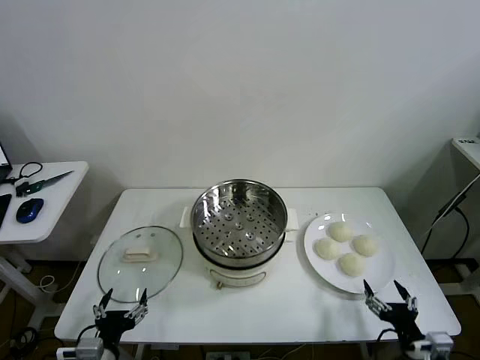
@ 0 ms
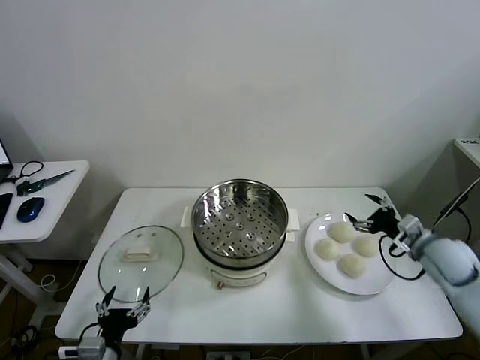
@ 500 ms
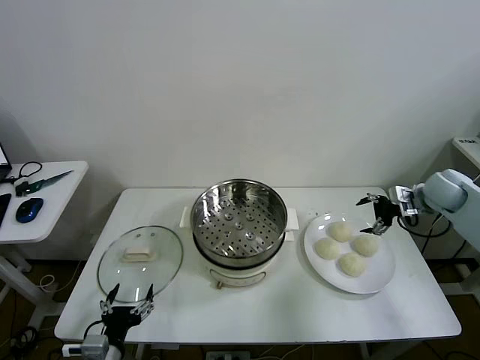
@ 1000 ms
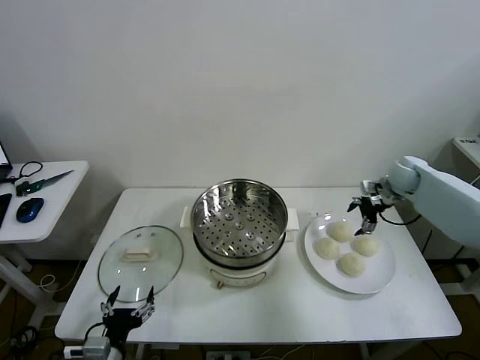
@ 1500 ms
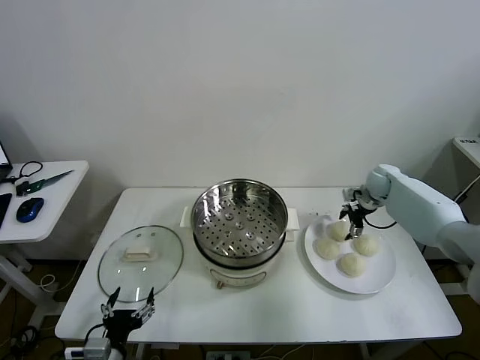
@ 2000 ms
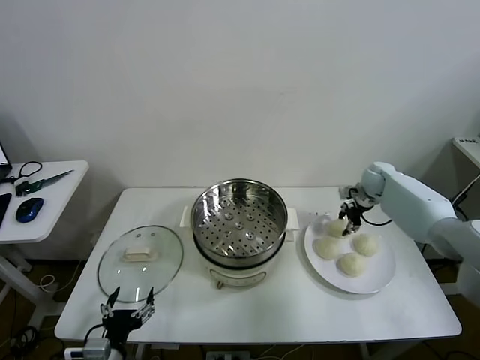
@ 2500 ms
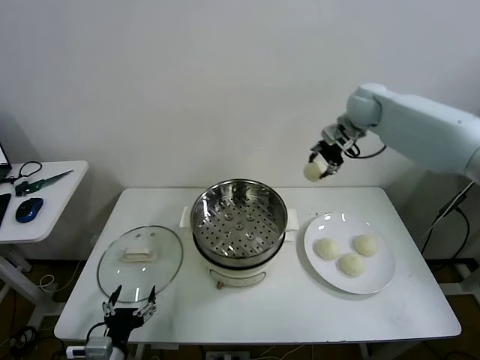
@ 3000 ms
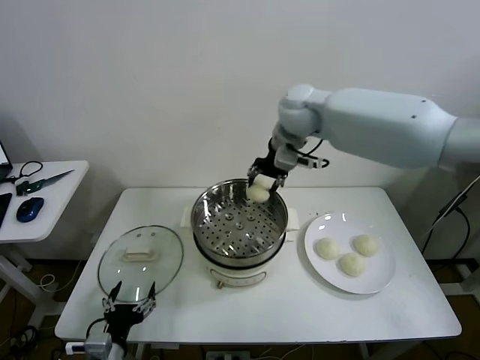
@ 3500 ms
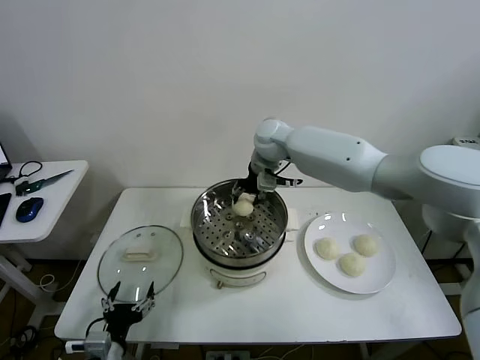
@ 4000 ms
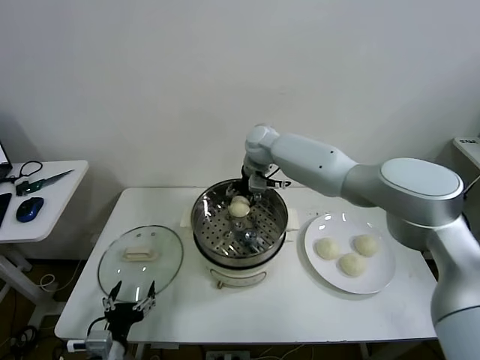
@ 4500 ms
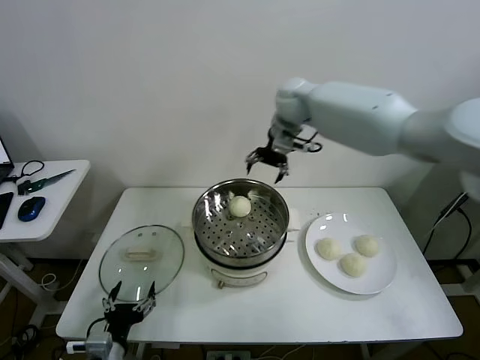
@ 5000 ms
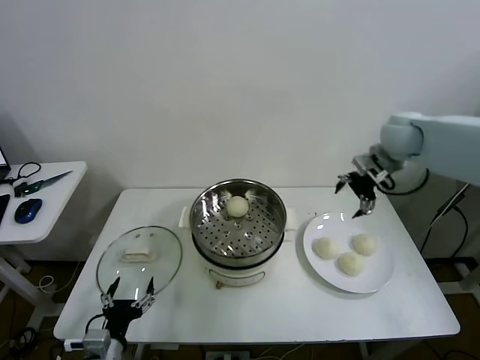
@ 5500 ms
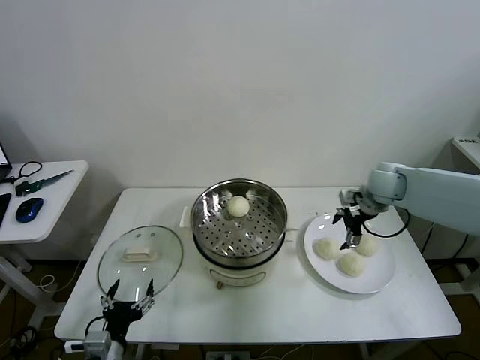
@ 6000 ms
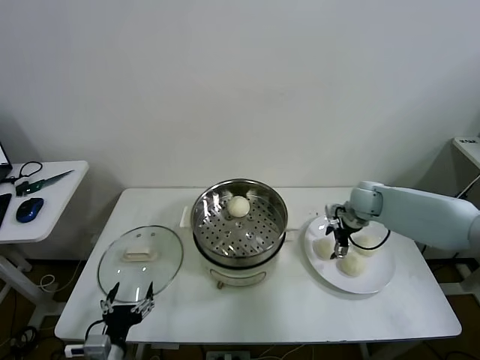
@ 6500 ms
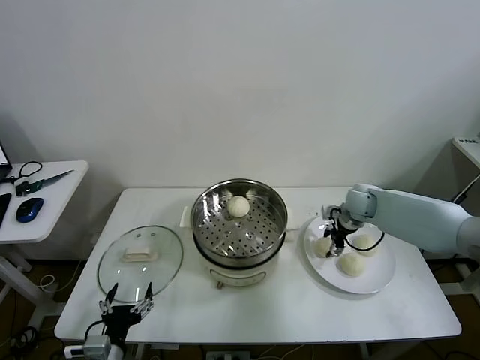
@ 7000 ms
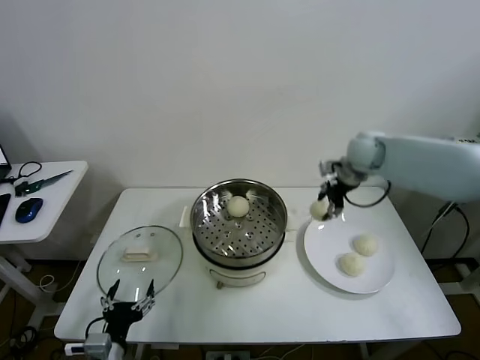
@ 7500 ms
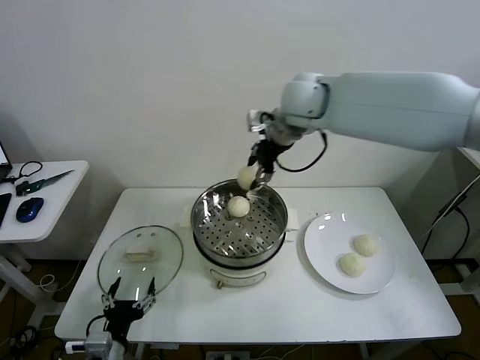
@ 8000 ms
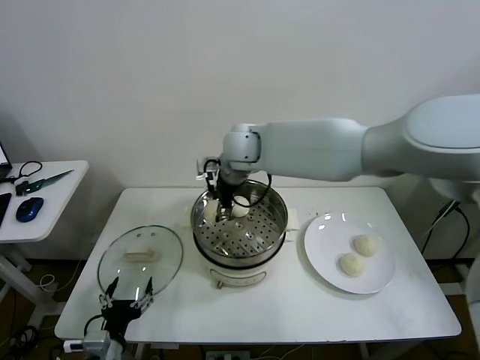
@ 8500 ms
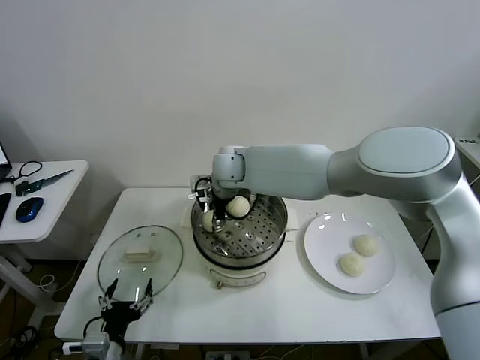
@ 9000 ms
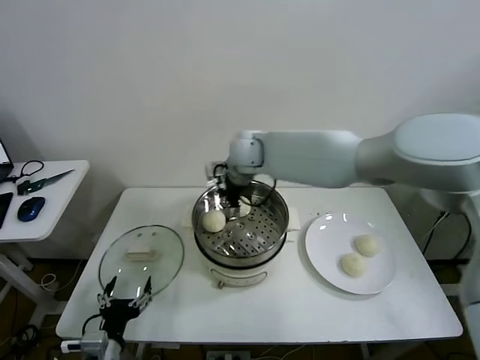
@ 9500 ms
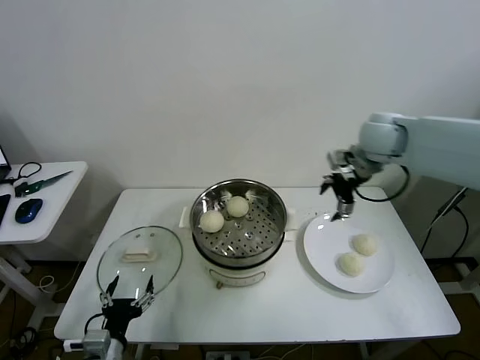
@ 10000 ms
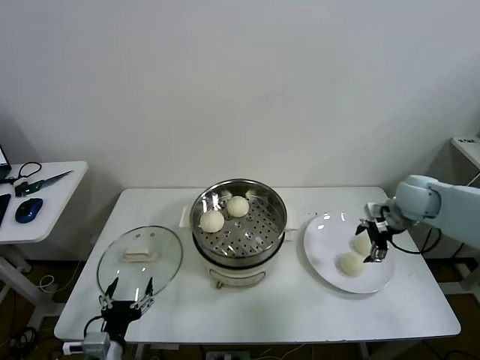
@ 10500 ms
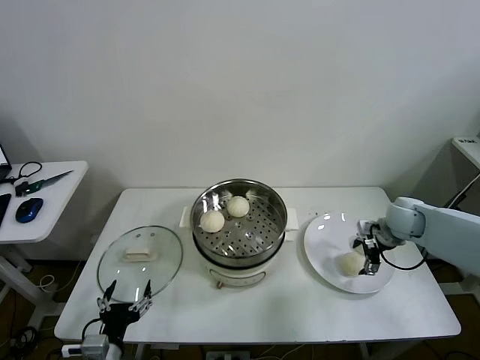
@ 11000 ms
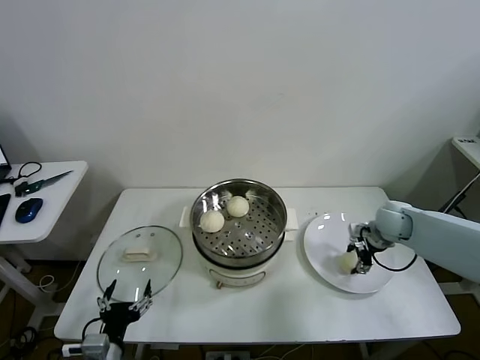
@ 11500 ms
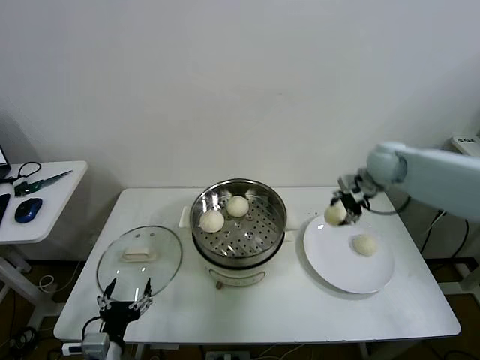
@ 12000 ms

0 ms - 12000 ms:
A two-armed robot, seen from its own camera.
Task of the whole recording: take steamed baozi put them in steamer then cover it.
Step, 0 ms - 2000 ms: Grasp the baozi in the plate with right gripper.
Step, 2500 ms - 4500 ms: Place the baozi on the steamer with right gripper.
Step, 5000 ms - 6500 ms: Grasp the baozi in the plate with right gripper.
Step, 7000 ms - 9500 ms: Place the baozi on the steamer with right gripper.
Step, 10000 ms - 11000 ms: Grasp the baozi in the plate with right gripper.
2000 ms - 4000 ms: The right gripper is displaced to the left and upward by approximately 35 cm, and closes its fingers.
4000 ms - 6000 ms: The right gripper goes some 30 cm to the right, and opens its fingers.
6000 ms - 8000 ms: The right gripper shifts about 30 cm to the left and upward, and closes up.
8000 ms - 10000 ms: The right gripper is displaced to the right and downward by some 20 cm, and opens its fingers.
10000 ms - 12000 ms: The right gripper goes about 10 cm downward and to the right, and closes up.

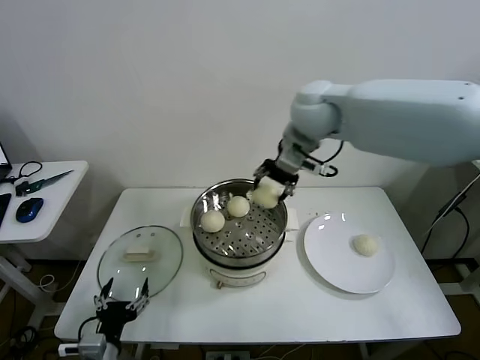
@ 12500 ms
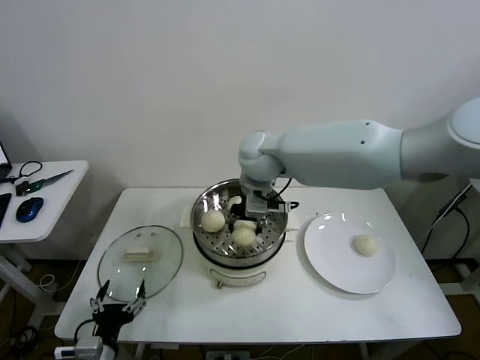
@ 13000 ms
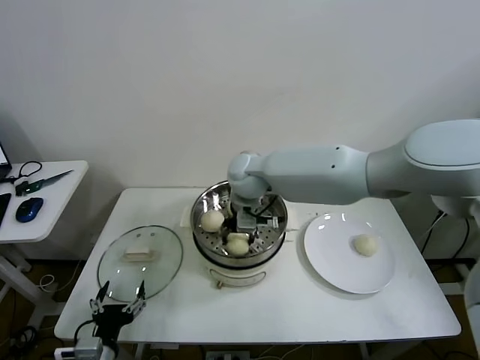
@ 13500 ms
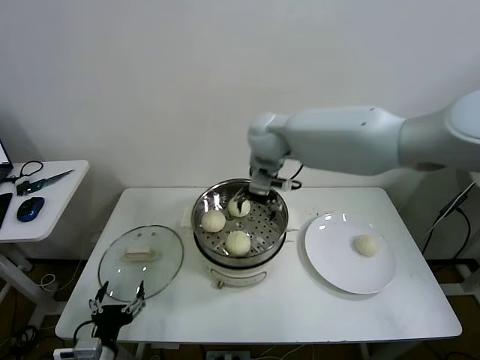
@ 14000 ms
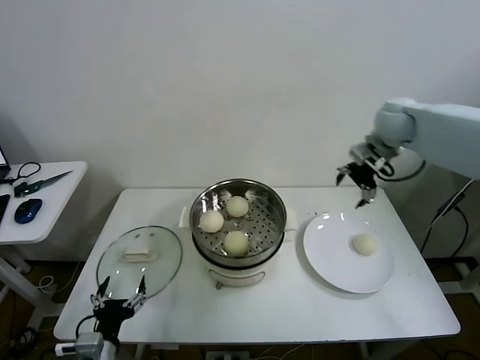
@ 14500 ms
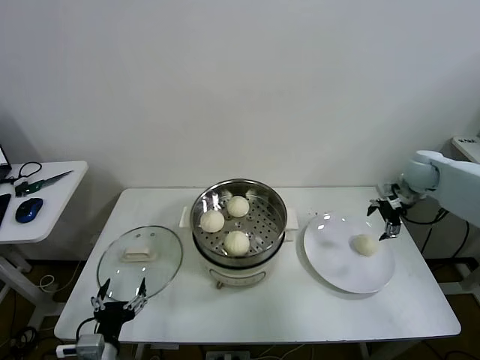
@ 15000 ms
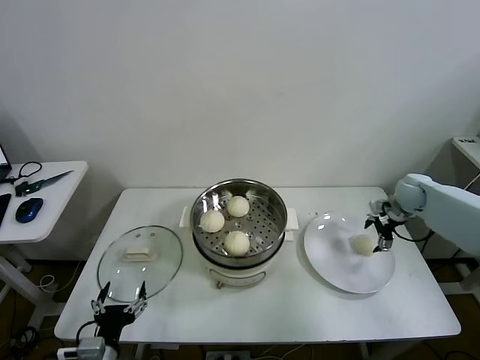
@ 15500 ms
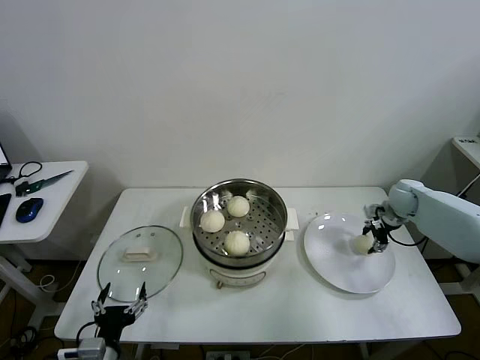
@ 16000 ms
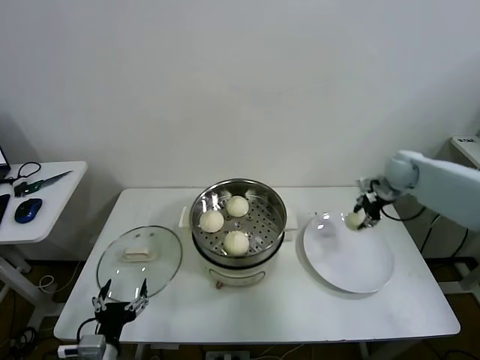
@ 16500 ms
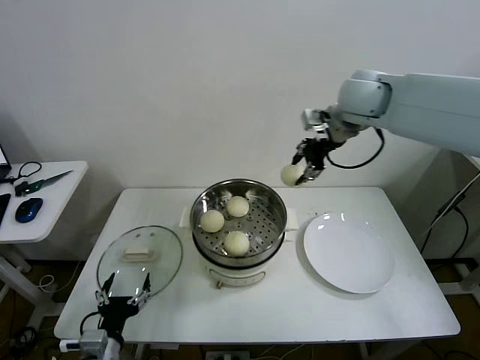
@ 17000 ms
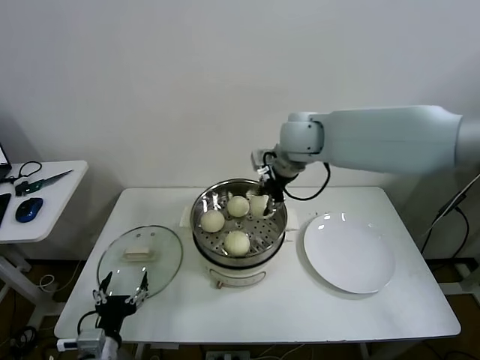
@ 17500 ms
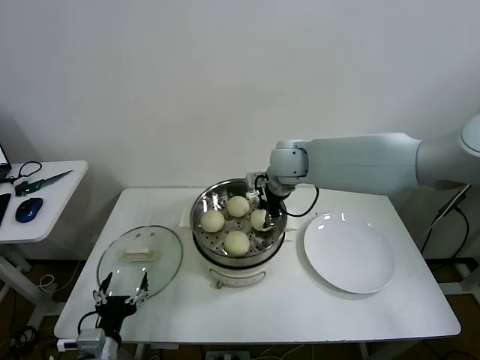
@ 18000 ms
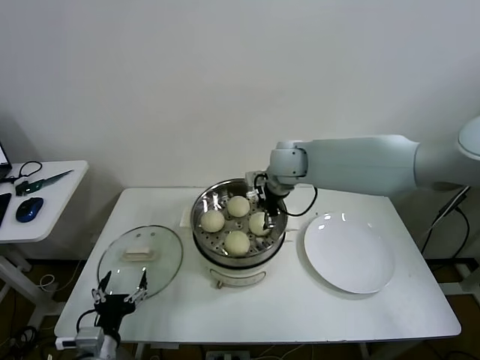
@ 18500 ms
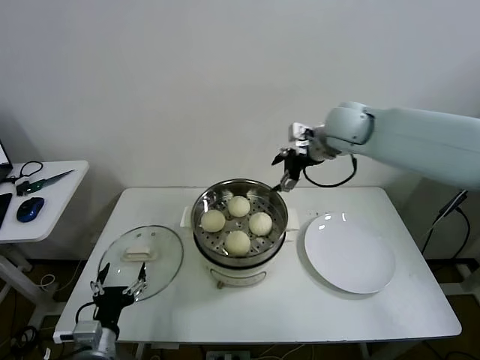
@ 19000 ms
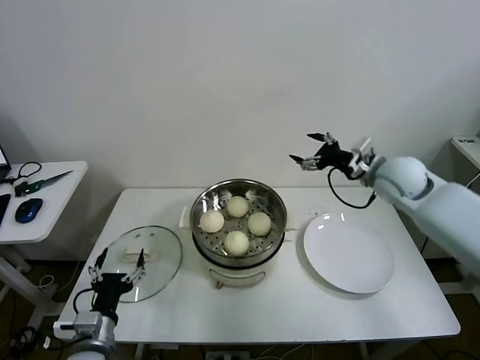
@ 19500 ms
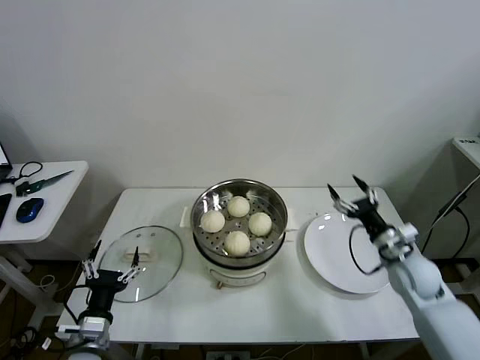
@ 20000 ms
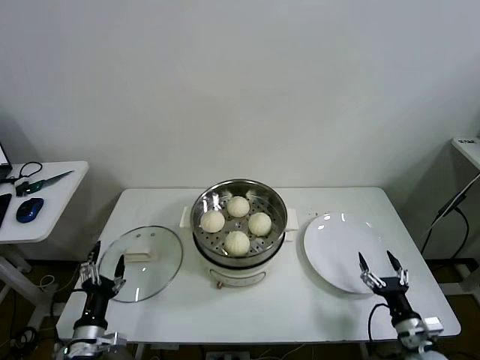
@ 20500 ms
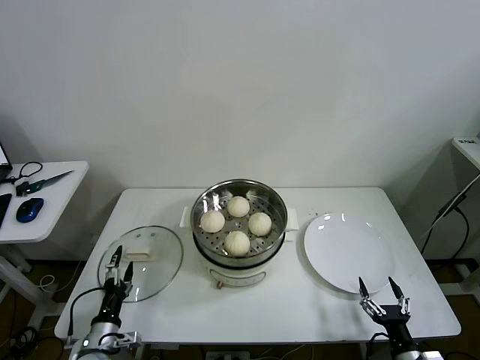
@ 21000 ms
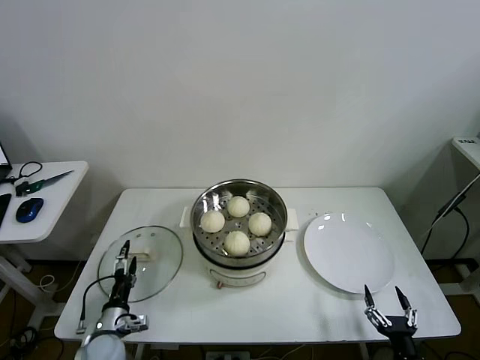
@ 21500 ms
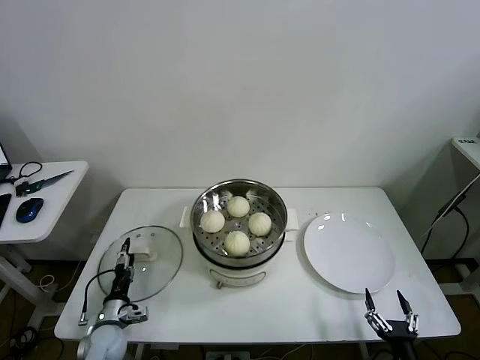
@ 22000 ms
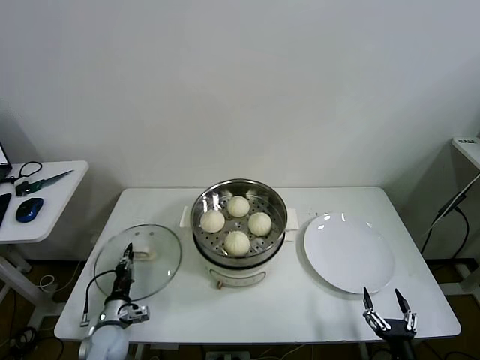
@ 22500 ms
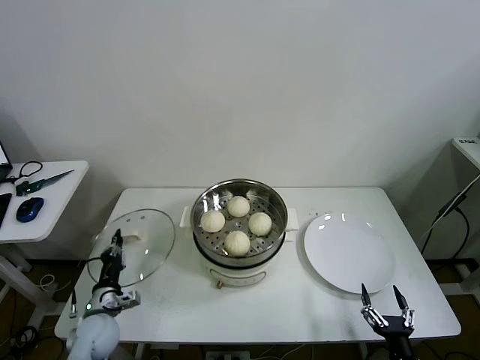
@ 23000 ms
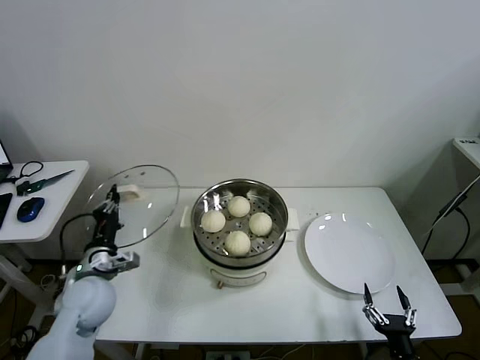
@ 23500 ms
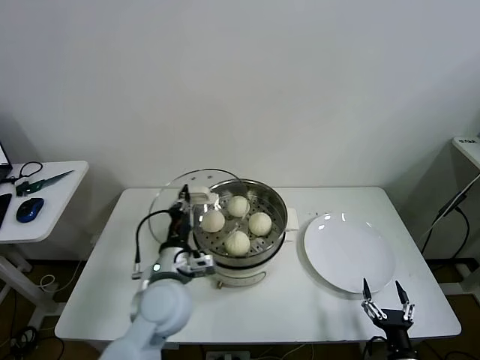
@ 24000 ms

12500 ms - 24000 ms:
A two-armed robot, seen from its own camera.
Task of the whole recording: take steamed baozi put them in steamer then cover it.
Step, 12500 ms - 13500 ms: Place the baozi on the steamer with right gripper.
Step, 14000 ms - 16000 ms: Grasp the baozi in the plate with right gripper.
Step, 16500 ms - 18500 ms: Place the baozi on the steamer with right gripper.
Step, 19000 ms - 22500 ms: Grasp the pot lid with left gripper.
12500 ms - 14500 ms: The right gripper goes approximately 20 cm to the right, and opens its fingers.
14500 ms - 16500 ms: The right gripper heads downward and to the right, covering about 15 cm, and closes its fingers.
16500 ms - 18500 ms: The right gripper moves to the left, about 30 cm, and opens.
18500 ms - 20000 ms: The right gripper is displaced to the right, downward and backward by some 35 cm, and opens up.
20000 ms - 22000 ms: The right gripper is displaced backward and downward by about 30 cm. Meanwhile the left gripper shifts approximately 15 cm downward and forward.
22000 ms - 24000 ms: The left gripper shifts approximately 30 cm upward and to the right, and closes up.

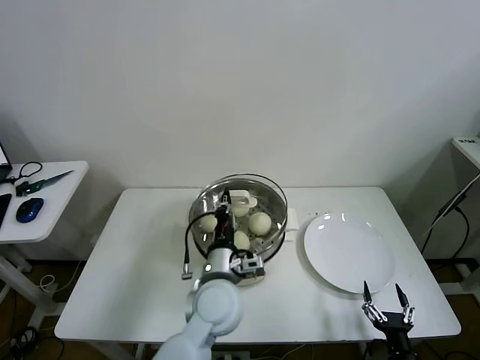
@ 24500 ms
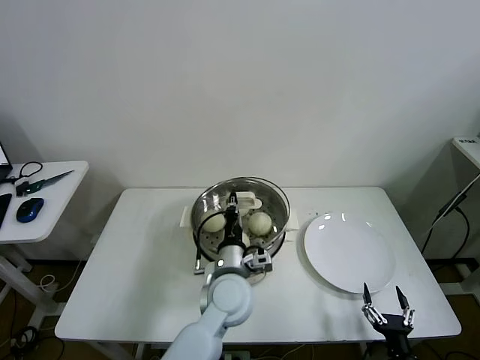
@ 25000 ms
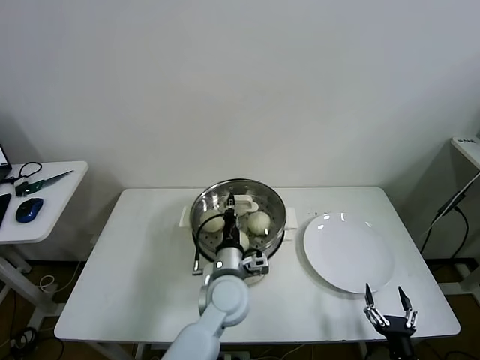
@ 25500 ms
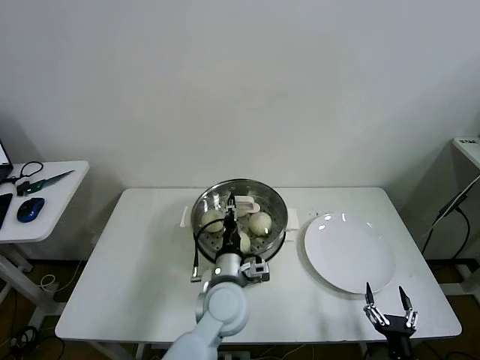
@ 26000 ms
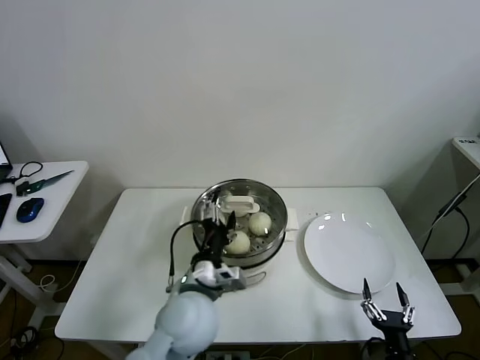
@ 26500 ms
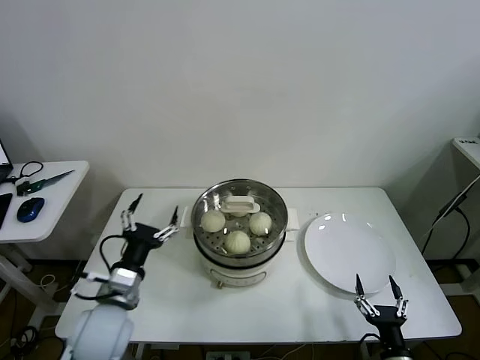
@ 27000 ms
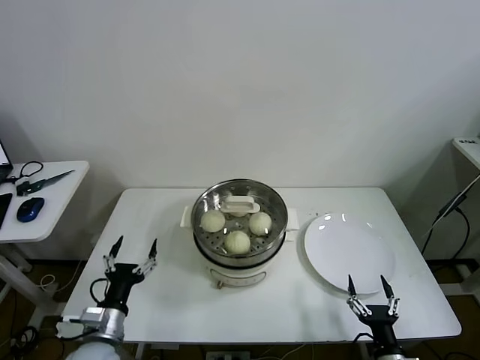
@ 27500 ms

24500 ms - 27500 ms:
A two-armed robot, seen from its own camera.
Task of the whole recording: take steamed baozi put them in steamer then cover it.
24500 ms - 26000 ms: The grippers stay close to where they were, moving slightly.
26000 ms - 27500 ms: The left gripper moves to the left, roughly 25 cm, and opens up.
